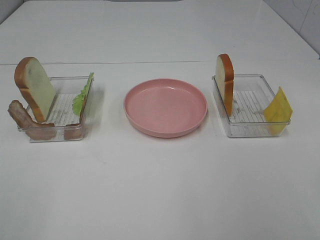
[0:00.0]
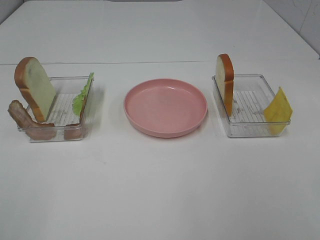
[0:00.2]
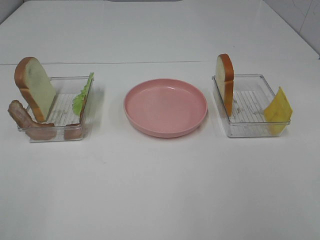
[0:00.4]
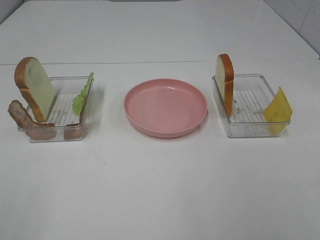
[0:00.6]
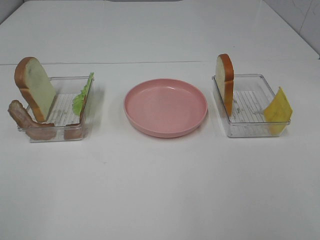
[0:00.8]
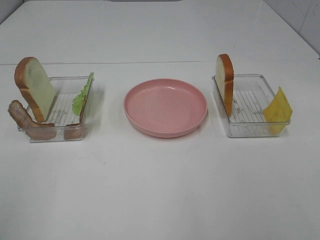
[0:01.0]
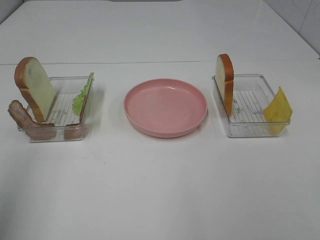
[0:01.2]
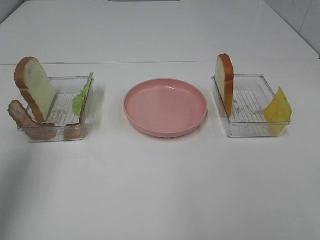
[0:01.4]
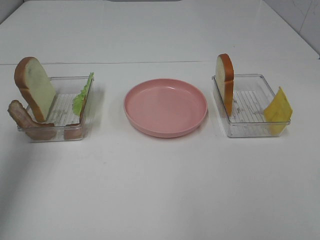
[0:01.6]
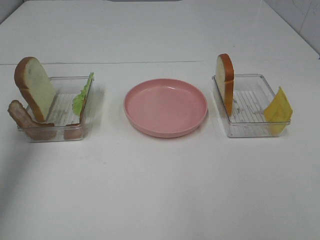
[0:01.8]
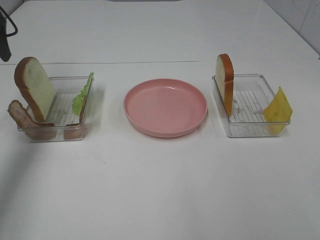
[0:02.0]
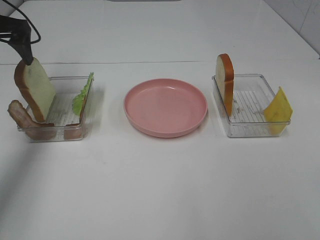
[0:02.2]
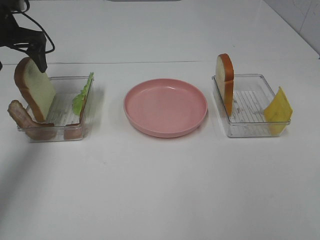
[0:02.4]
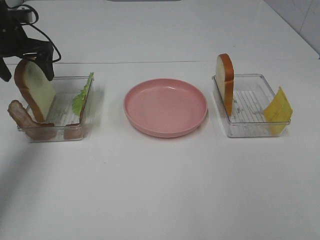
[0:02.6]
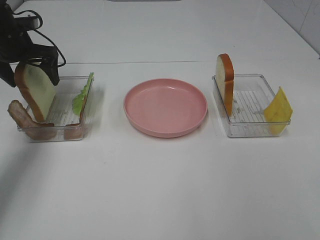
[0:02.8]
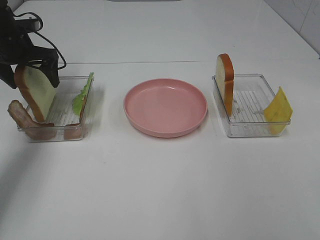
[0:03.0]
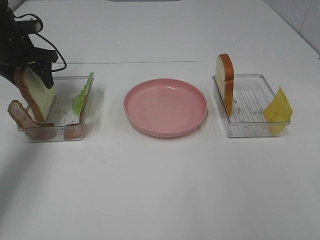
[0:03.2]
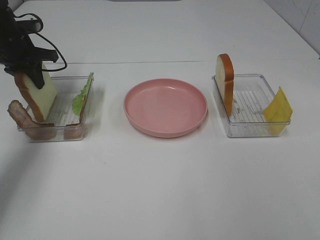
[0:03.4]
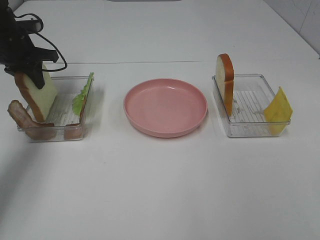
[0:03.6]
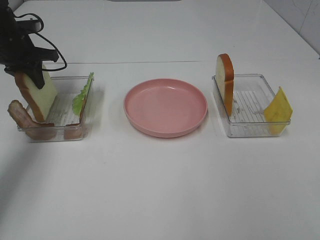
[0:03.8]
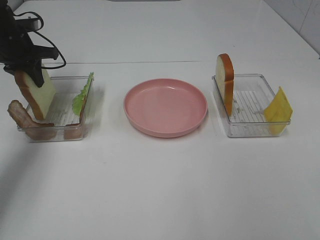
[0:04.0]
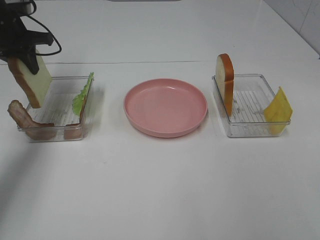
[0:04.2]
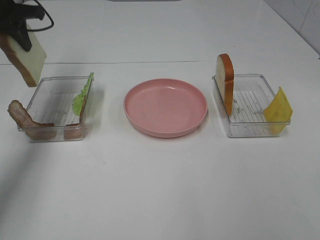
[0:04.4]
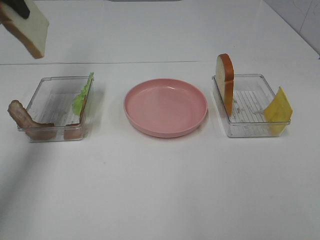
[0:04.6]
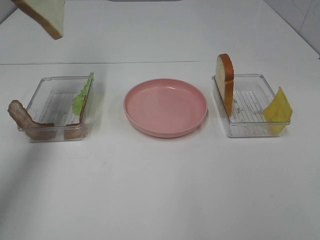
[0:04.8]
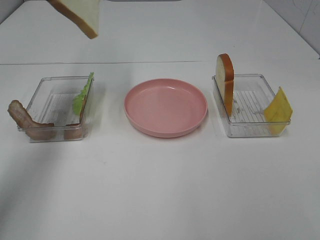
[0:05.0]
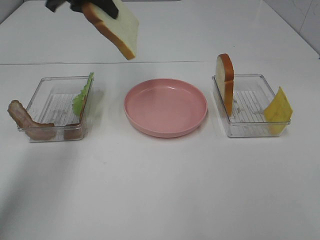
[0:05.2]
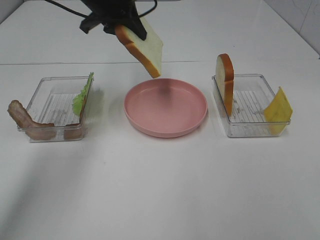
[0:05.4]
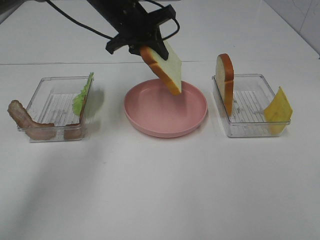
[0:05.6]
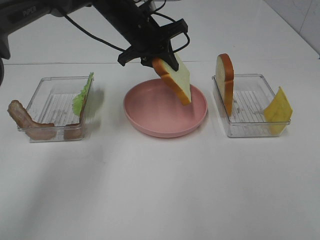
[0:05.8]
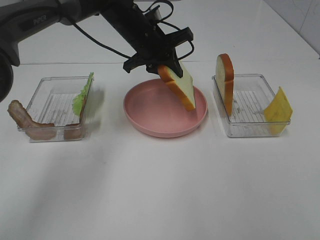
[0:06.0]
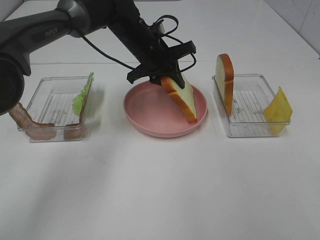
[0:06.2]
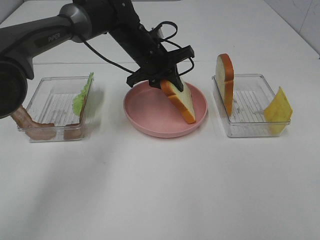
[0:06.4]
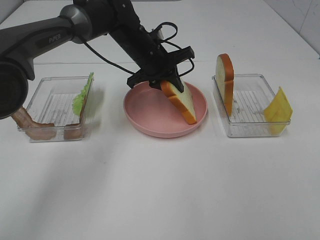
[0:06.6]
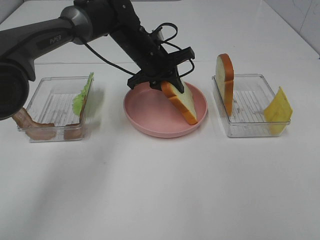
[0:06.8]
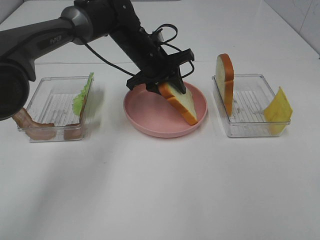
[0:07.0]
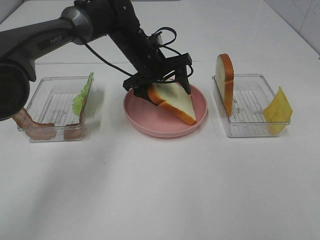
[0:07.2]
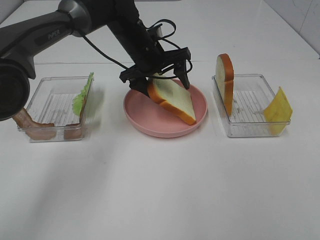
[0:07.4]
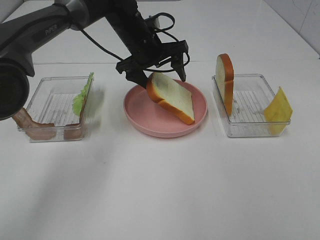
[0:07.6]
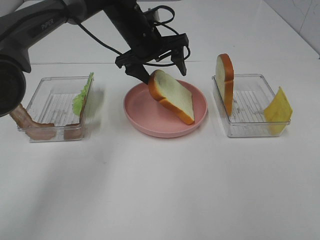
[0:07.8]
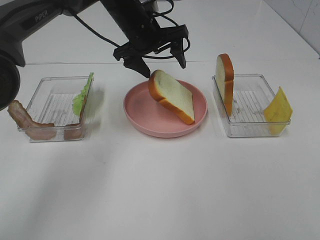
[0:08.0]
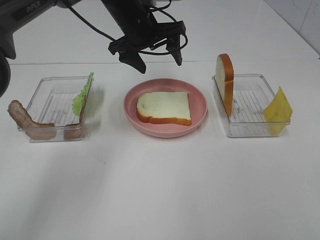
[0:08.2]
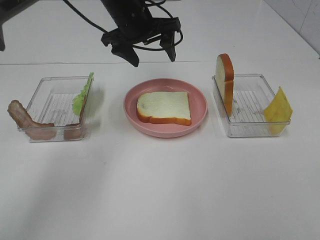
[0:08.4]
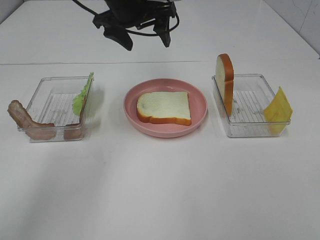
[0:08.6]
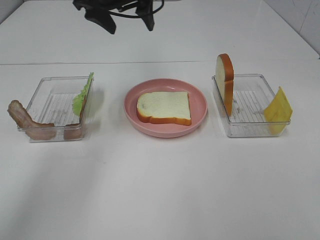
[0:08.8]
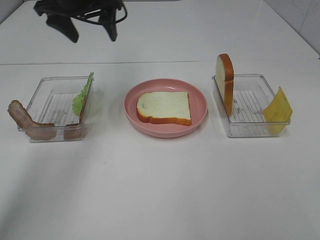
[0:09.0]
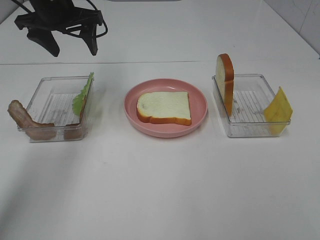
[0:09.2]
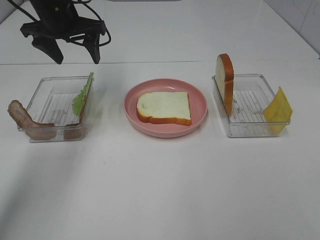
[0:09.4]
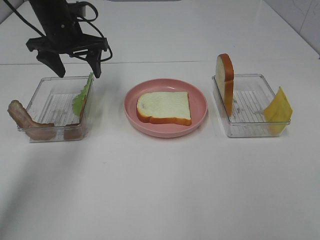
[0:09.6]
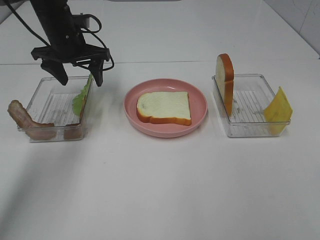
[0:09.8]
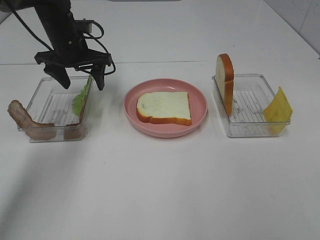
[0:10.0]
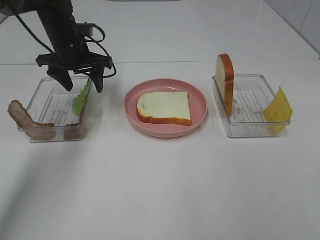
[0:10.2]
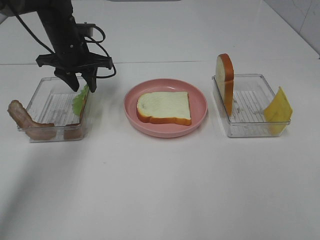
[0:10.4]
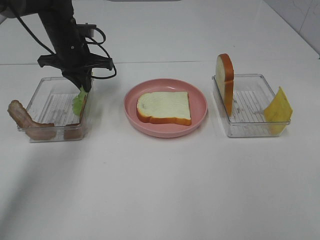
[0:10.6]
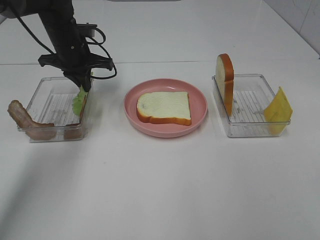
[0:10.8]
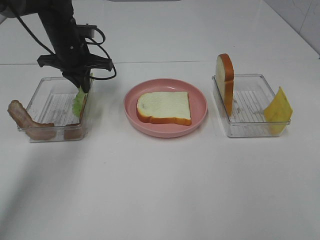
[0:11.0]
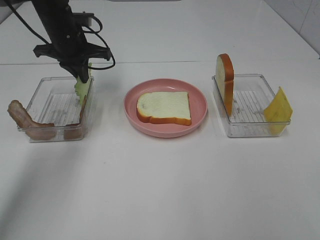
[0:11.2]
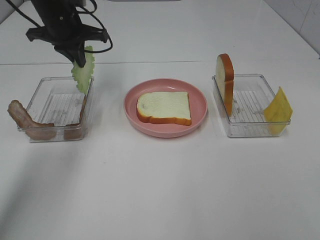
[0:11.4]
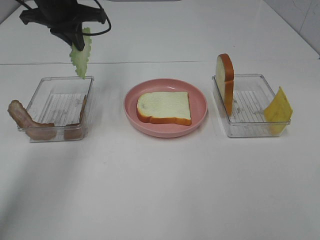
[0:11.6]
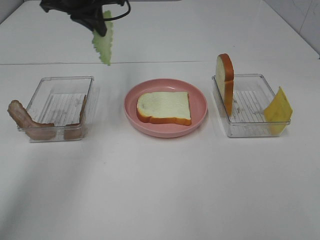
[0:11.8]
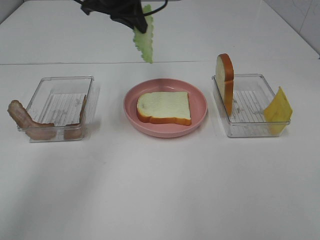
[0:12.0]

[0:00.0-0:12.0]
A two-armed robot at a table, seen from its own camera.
Task of the whole recording: Make sandwiches.
Step, 0:00.0 to 0:03.8: Left hand:grab the bread slice.
Step, 0:04.0 to 0:08.0: Left hand:place the bread slice on the plate.
Step, 0:08.2 to 0:10.6: Left hand:grab the lettuce slice.
0:00.0 to 0:01.6: The left gripper is displaced forward by about 30 cm.
0:01.6 to 0:03.0: The left gripper is displaced forward and downward by about 25 cm.
0:03.0 to 0:04.4: The left gripper heads upward, covering about 10 cm, and closes up.
0:04.4 to 0:06.0: The left gripper is displaced to the right by approximately 25 cm.
0:06.0 to 0:07.6: The left gripper opens.
0:07.6 to 0:09.0: The left gripper moves to the left and upward, roughly 15 cm.
0:09.0 to 0:10.4: The left gripper heads downward, covering some 10 cm, and closes its fingers.
0:10.4 to 0:12.0: The left gripper travels upward and to the right by about 15 cm, and closes.

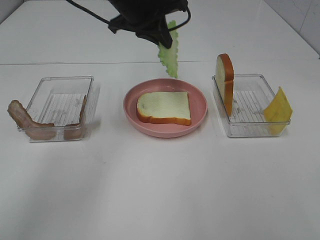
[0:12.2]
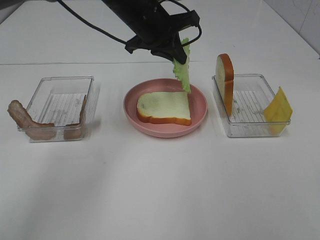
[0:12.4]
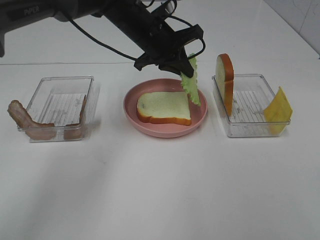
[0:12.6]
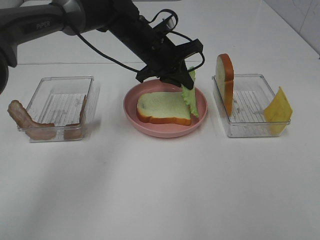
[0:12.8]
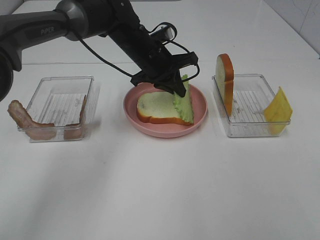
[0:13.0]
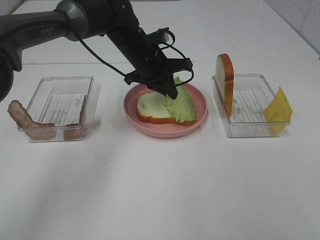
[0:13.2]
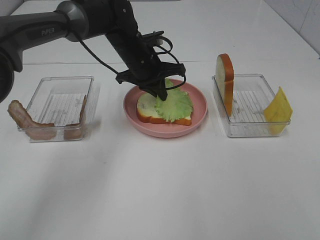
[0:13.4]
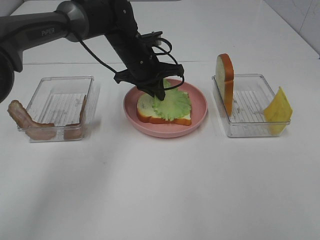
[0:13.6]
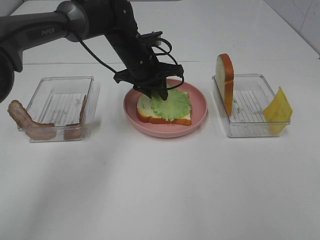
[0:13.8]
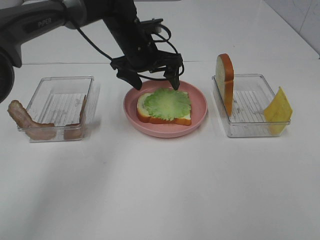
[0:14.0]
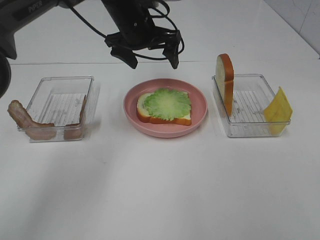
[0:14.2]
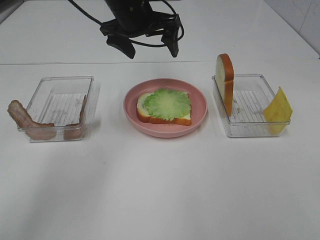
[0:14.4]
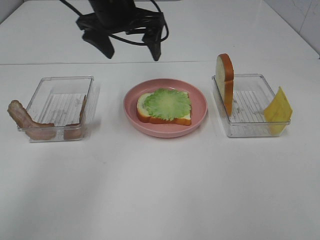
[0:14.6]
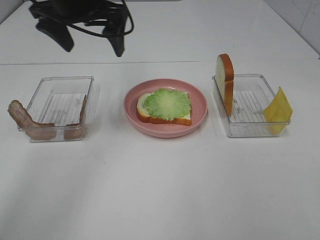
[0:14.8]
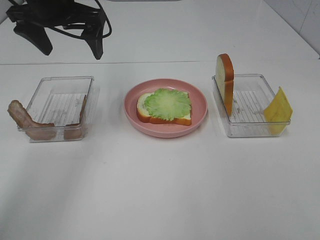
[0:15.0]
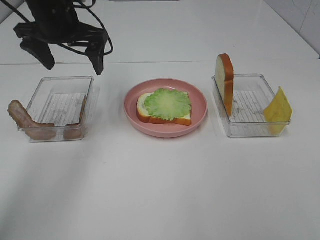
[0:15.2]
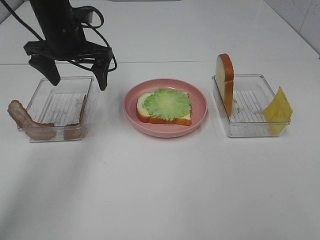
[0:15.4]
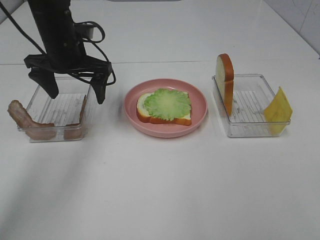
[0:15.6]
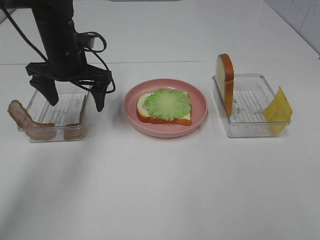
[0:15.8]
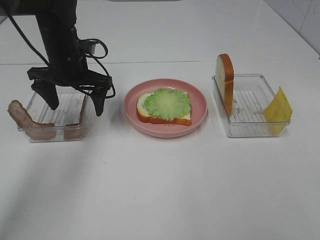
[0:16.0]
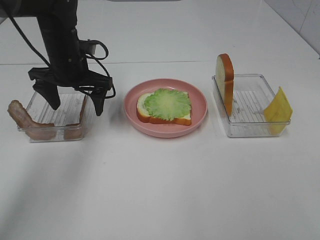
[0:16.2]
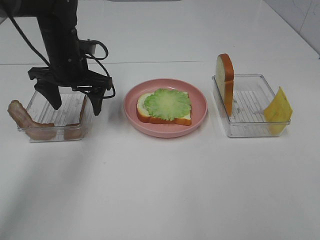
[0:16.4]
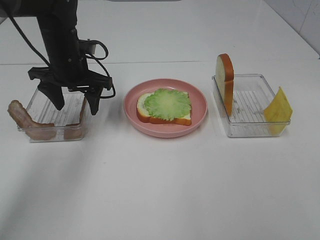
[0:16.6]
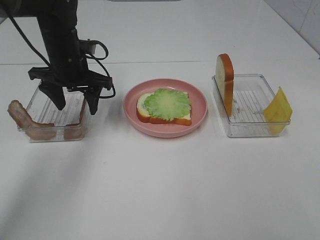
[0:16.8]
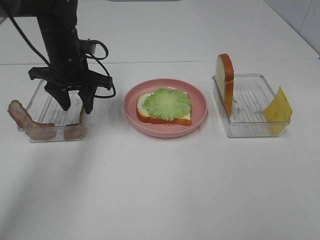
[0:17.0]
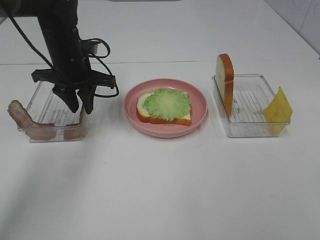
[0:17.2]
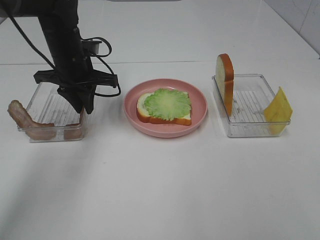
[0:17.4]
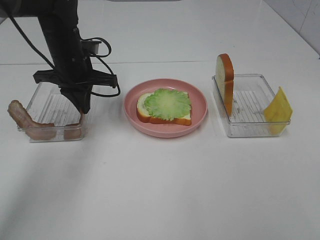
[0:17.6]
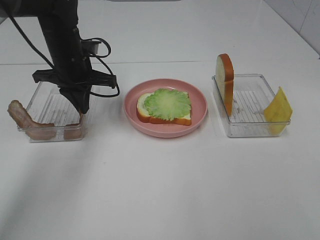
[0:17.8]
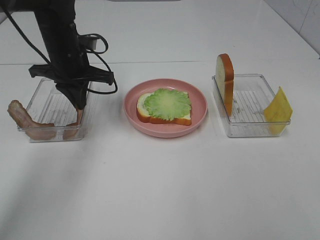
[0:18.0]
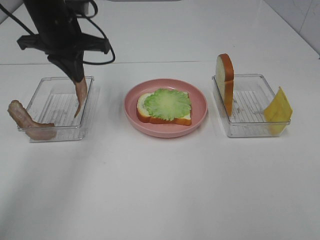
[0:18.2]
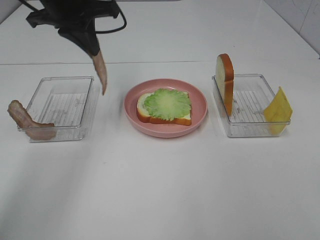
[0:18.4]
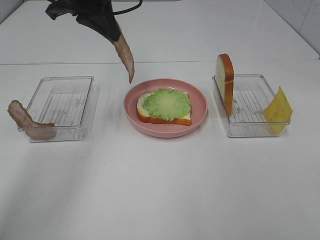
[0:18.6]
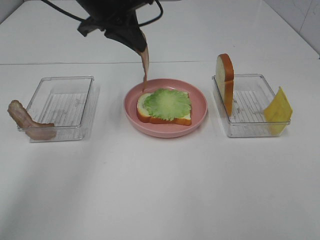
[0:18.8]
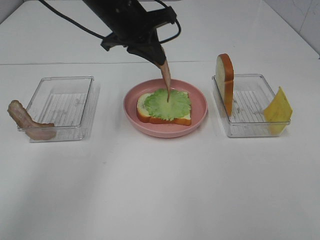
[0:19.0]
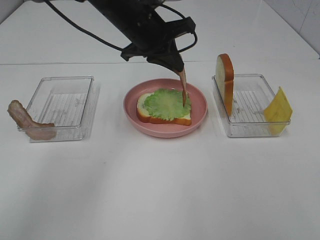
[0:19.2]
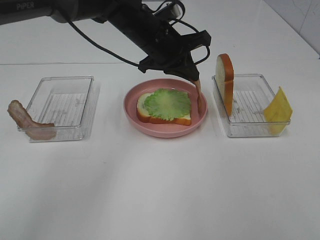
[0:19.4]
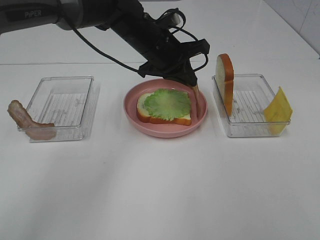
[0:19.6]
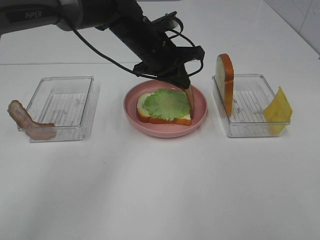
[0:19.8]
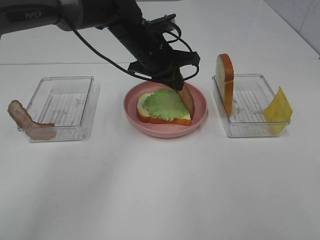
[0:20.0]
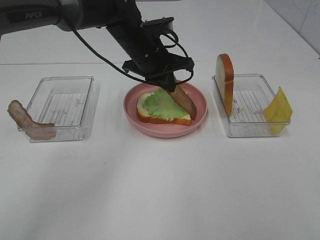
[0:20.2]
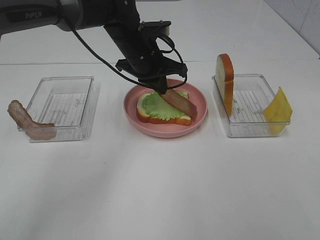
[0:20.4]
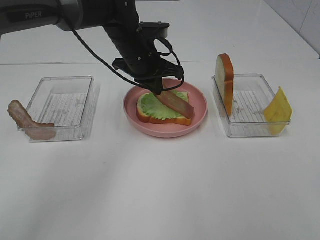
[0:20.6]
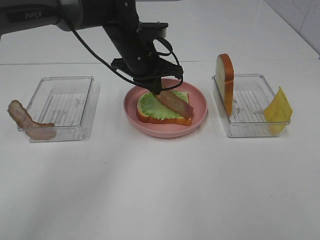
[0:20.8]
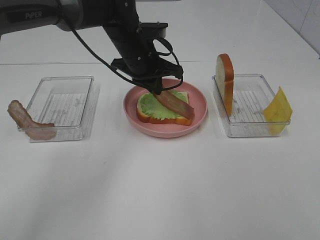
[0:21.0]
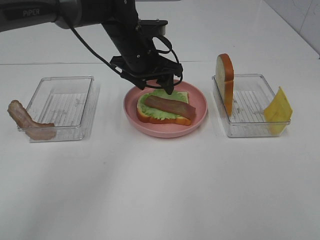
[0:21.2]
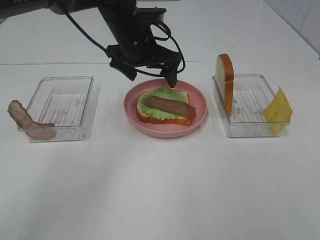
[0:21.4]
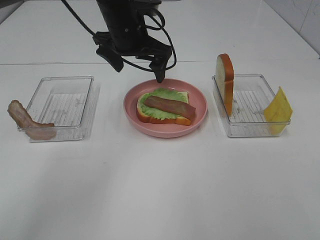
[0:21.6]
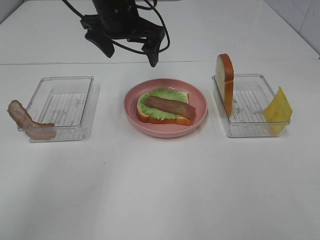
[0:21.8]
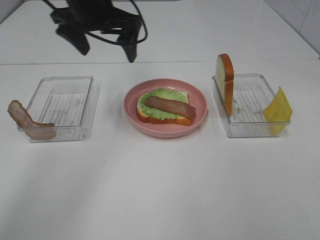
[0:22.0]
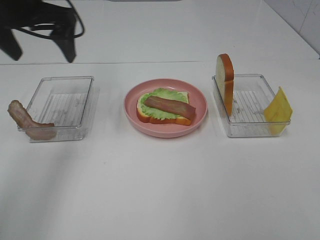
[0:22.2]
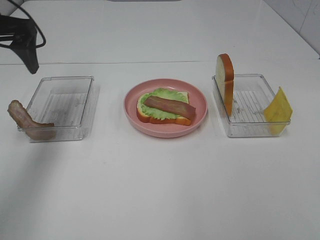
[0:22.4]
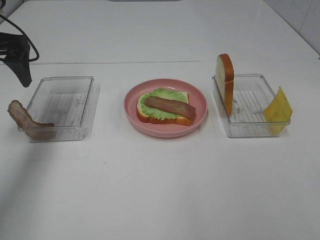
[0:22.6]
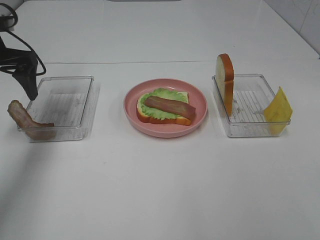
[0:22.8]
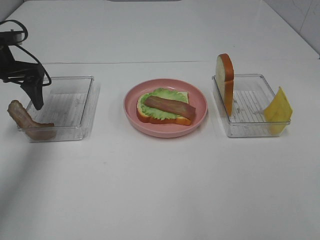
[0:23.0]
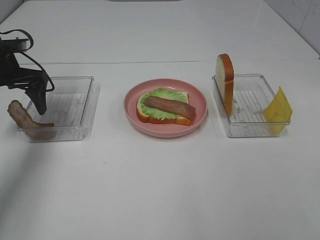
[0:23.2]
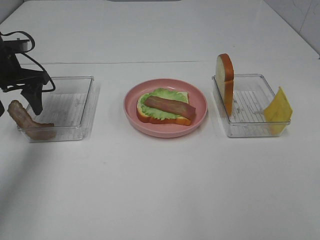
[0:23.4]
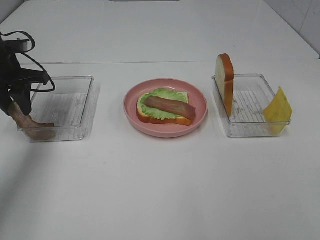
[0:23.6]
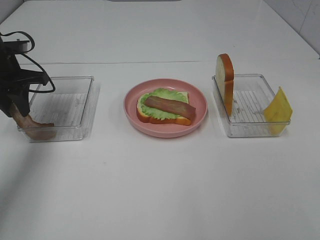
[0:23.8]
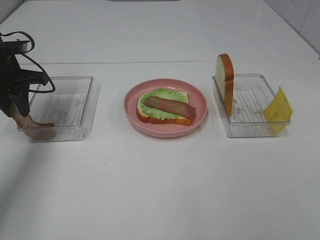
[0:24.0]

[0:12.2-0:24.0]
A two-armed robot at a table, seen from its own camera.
Task of the whole recording: Make sandwiches.
Step, 0:12.2 to 0:14.0: Left hand:place the lettuce slice on the bread slice.
Step, 0:14.2 to 0:17.6: Left hand:grab the bacon.
Step, 0:17.8 to 0:21.4: Left hand:place bacon on lettuce slice.
0:12.2 to 0:13.6: The left gripper shifts about 10 cm downward.
0:13.6 to 0:15.2: The left gripper goes some 15 cm to the left and upward, and opens up.
0:15.2 to 0:16.6: The left gripper is displaced downward by roughly 10 cm.
0:16.6 to 0:18.2: The left gripper is displaced upward by about 10 cm, and closes its fingers.
0:18.2 to 0:19.6: The left gripper travels to the right and downward by some 15 cm.
0:21.0 to 0:22.6: The left gripper travels to the left by approximately 25 cm, and opens up.
0:22.6 to 0:24.0: The left gripper shifts some 10 cm downward, and closes up.
